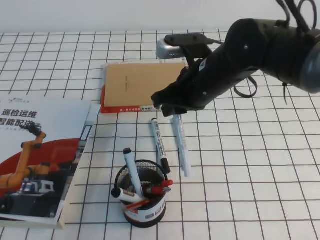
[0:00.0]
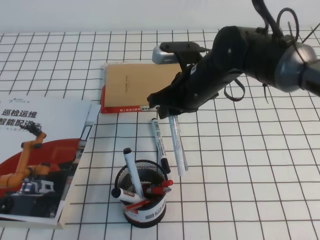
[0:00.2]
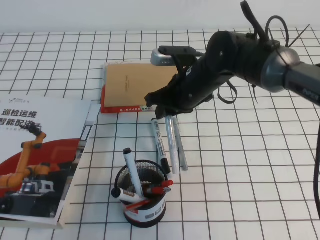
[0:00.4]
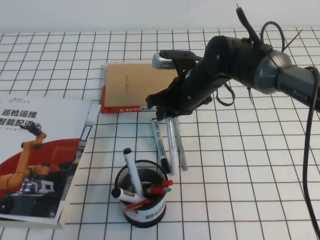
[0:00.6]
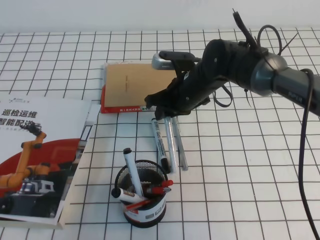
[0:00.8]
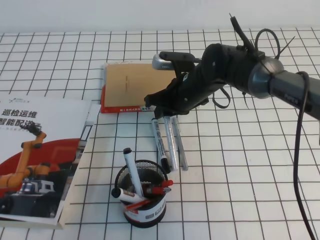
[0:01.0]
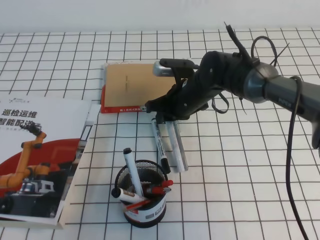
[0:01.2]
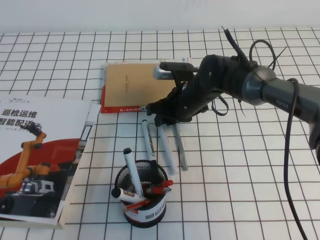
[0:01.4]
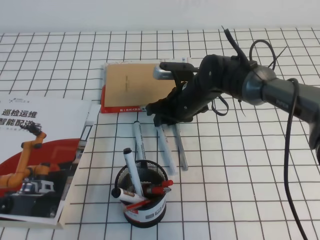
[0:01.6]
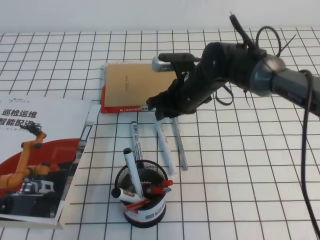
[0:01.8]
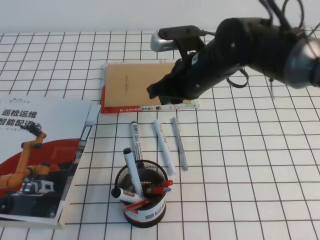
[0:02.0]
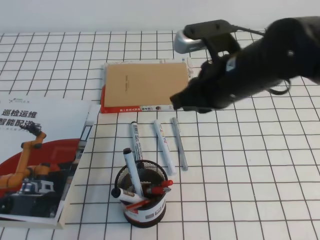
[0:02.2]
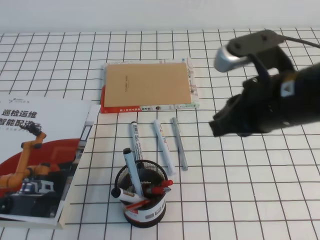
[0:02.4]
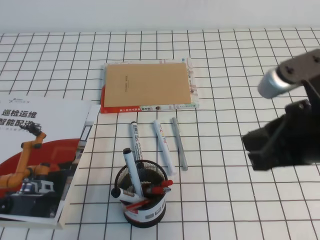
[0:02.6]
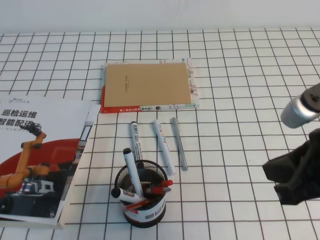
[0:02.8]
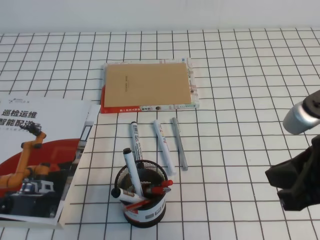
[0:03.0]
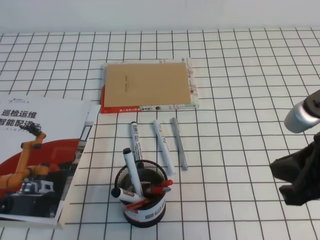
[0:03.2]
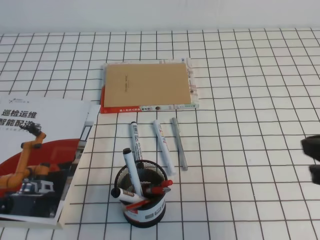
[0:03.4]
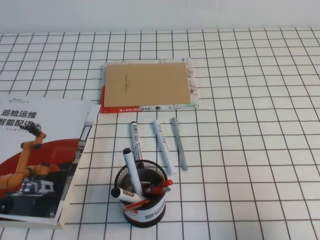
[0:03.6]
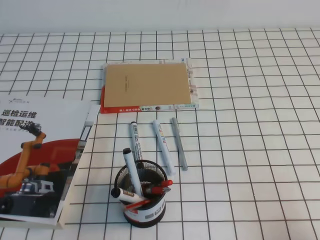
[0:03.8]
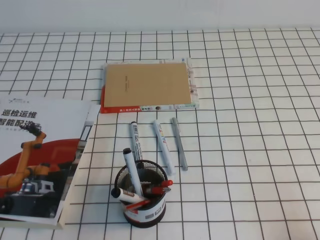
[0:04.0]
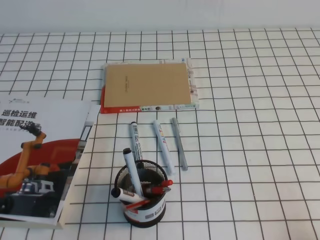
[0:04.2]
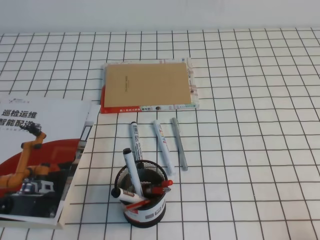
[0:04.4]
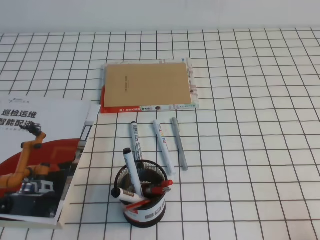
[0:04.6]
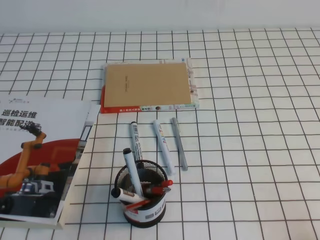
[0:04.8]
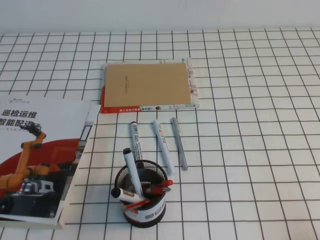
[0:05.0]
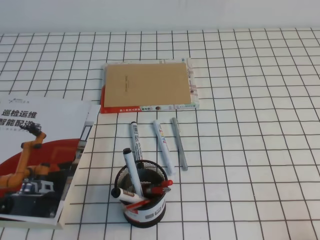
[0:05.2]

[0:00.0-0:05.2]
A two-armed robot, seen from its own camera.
Step, 0:00.0 to 0:05.2: Pick up the pen from the pen holder.
0:00.0 to 0:01.8: The right gripper is displaced downward and forward by approximately 10 cm.
0:01.8 to 0:03.4: The right gripper heads backward, to the right and upward, covering some 35 cm, and closes up.
0:03.4 to 0:05.2: The right gripper shifts about 20 cm downward, backward and to the right.
